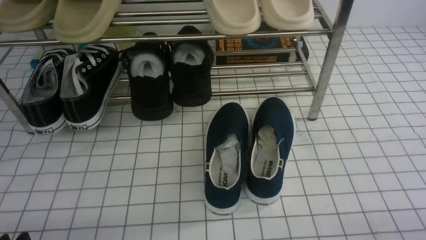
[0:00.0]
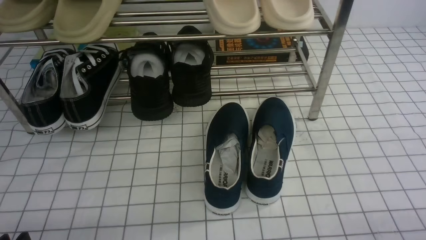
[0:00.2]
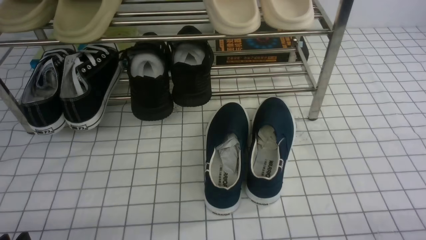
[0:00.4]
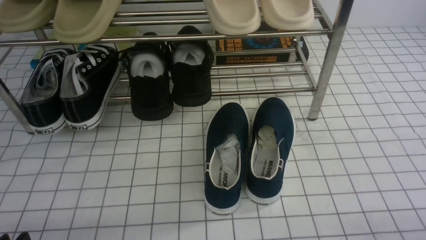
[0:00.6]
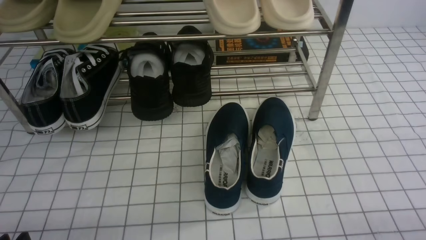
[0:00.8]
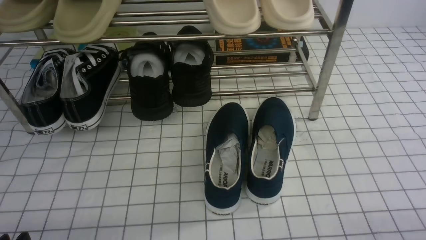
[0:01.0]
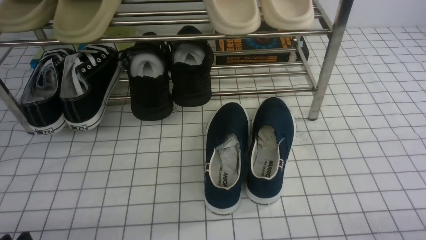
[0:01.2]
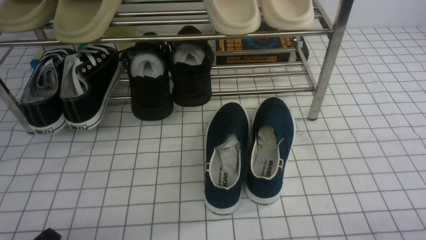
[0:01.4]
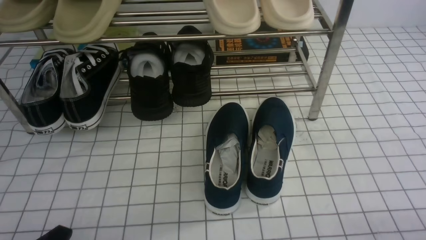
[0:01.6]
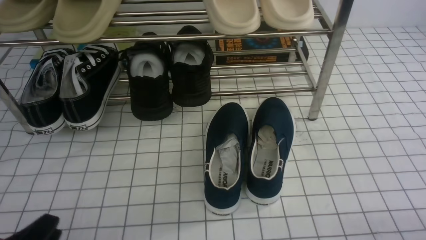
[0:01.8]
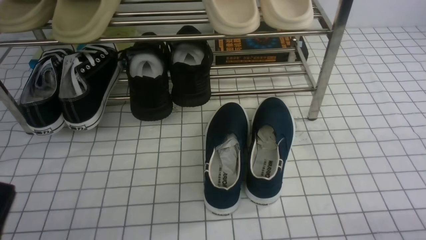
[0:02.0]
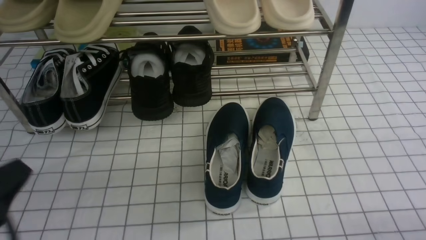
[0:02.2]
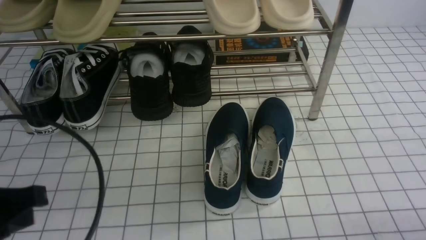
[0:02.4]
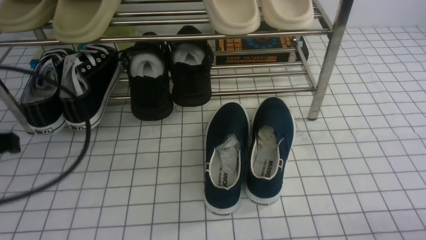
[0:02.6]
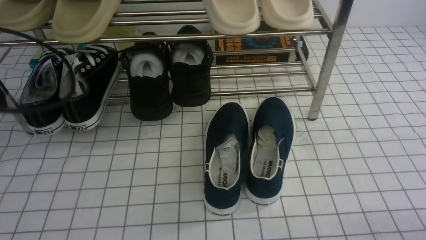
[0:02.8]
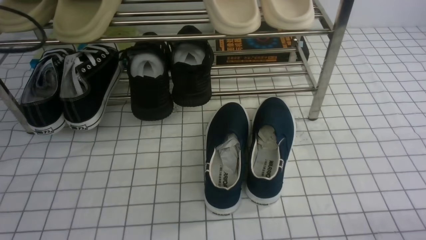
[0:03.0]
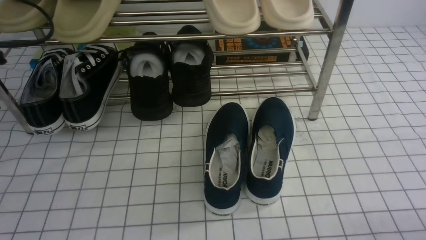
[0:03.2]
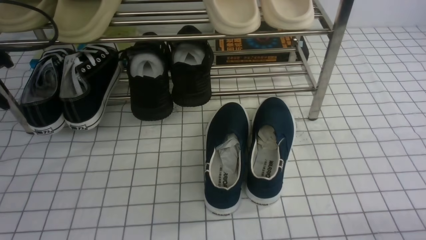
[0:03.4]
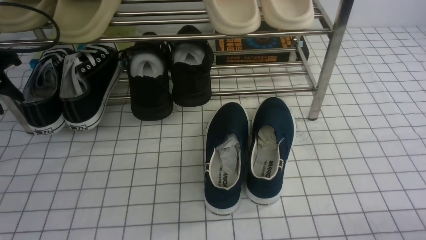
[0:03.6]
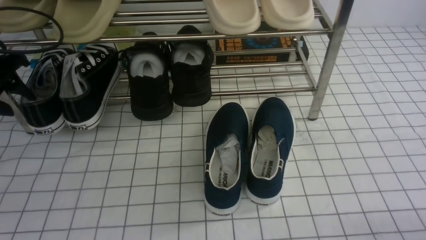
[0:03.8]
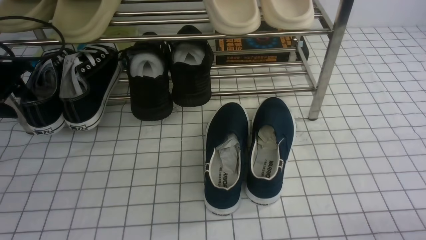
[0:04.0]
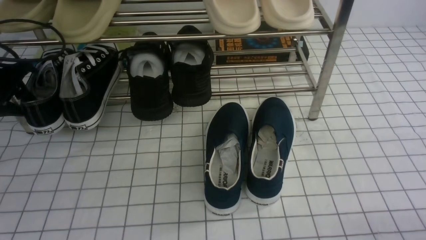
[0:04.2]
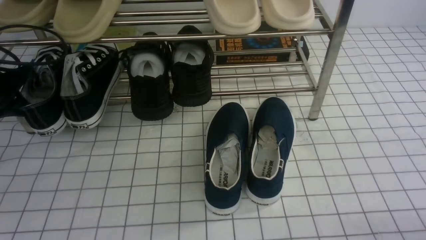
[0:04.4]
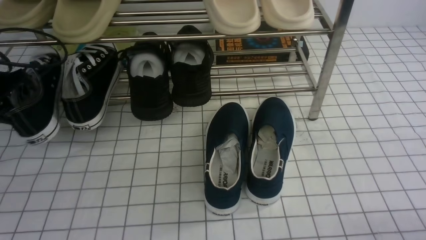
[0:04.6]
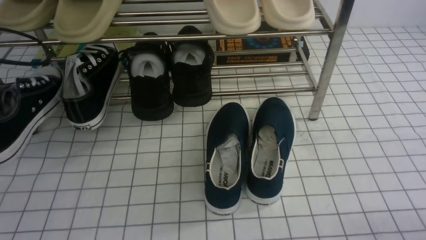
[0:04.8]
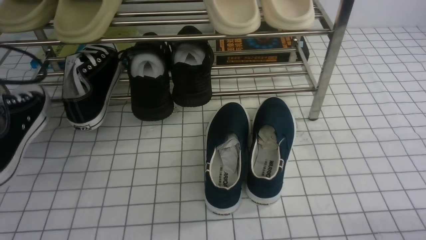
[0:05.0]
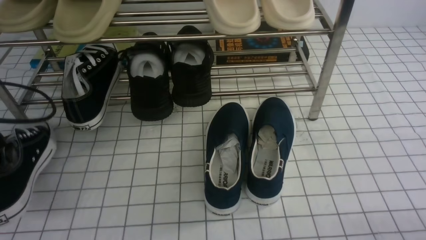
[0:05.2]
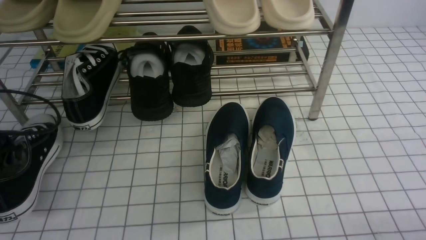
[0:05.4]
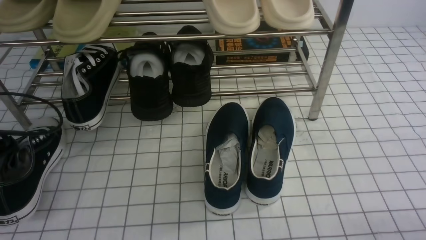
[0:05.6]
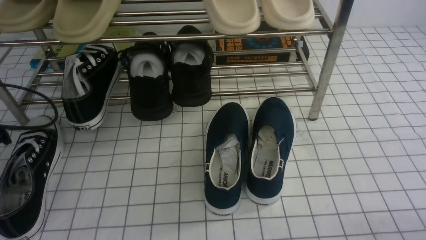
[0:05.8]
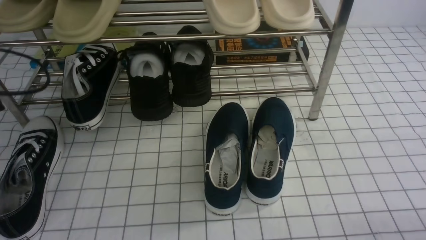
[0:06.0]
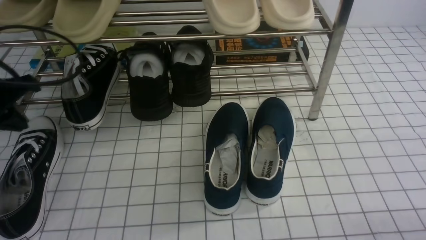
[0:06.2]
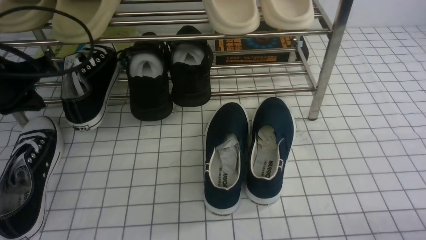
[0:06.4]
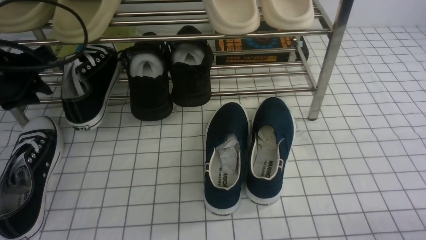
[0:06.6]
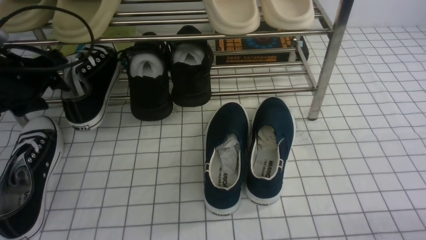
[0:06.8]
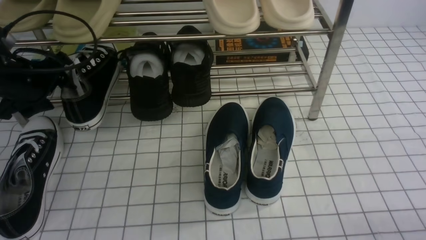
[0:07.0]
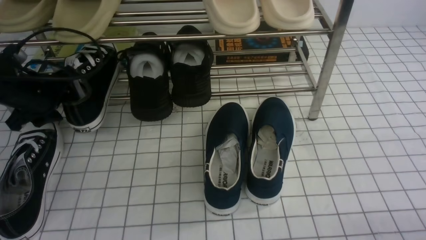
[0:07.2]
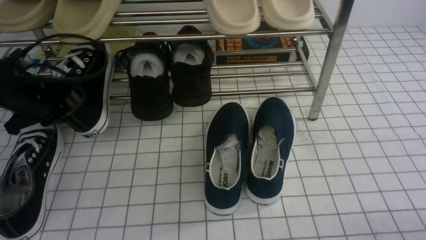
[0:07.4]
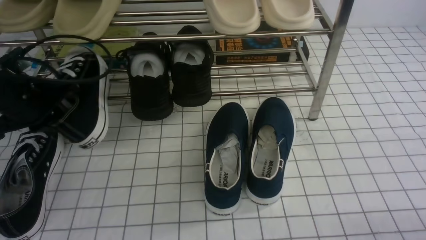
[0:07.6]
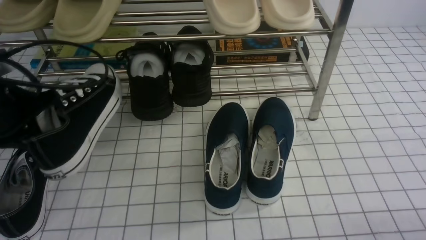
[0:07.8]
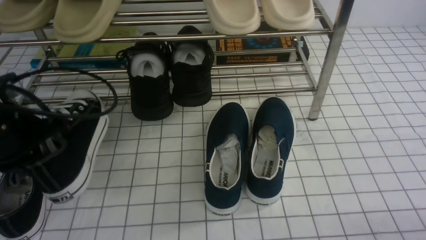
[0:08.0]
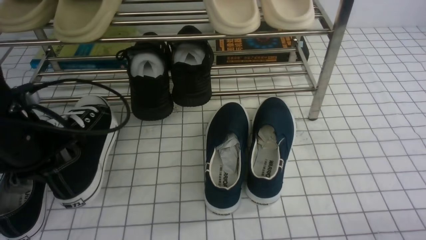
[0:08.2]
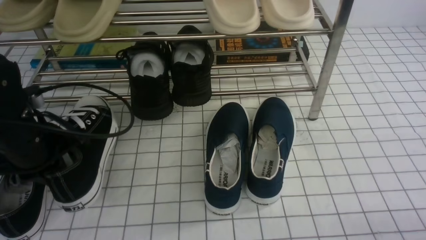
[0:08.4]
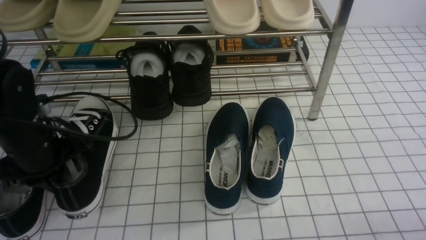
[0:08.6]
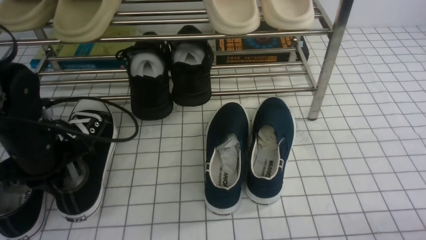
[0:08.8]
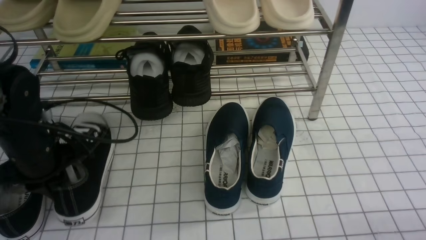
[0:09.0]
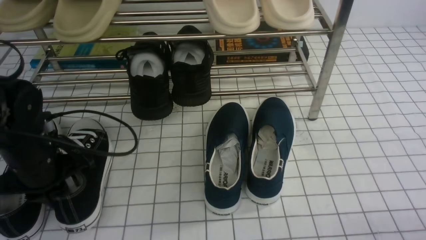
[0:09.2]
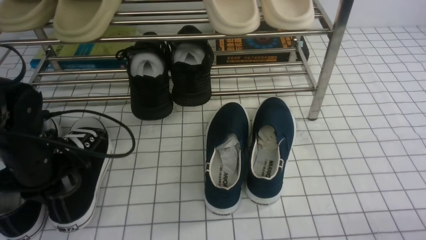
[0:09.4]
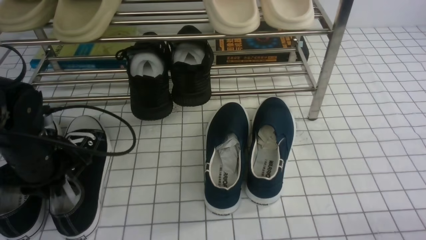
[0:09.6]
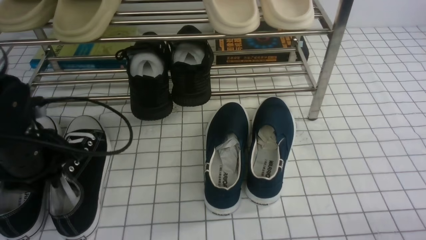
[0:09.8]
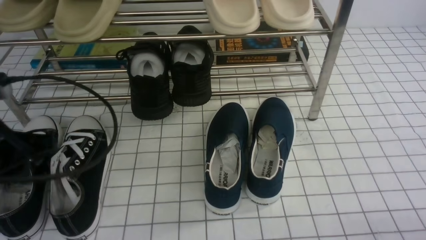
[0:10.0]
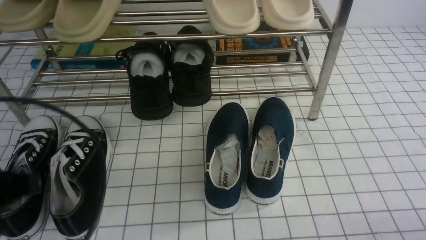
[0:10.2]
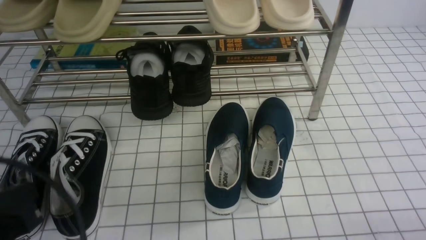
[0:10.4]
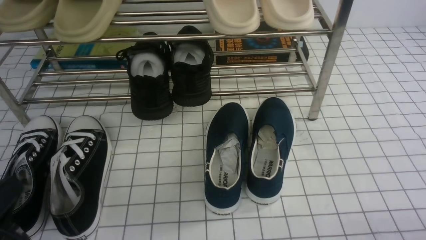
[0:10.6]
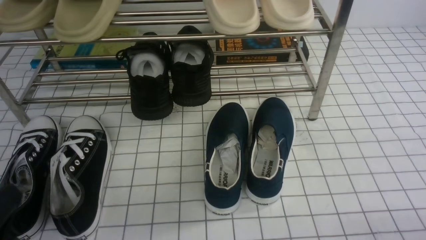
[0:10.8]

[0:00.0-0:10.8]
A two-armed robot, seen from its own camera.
Step, 0:00.0 to 0:04.4: use the left arm to clamp a shoe on the left side of the shoe rack.
Step, 0:04.6 to 0:06.0: Use your left arm to remove the clamped shoe from the shoe rack and put it down.
Step, 0:06.2 to 0:07.2: use the left arm to clamp a shoe on the left side of the shoe rack.
Step, 0:07.6 to 0:09.8: Use your left arm to remove the clamped shoe from the shoe rack and put it down.
0:01.6 to 0:03.0: The left gripper travels forward, upward and to the left by about 30 cm, and closes.
0:03.0 to 0:04.6: The left gripper shifts some 10 cm downward and forward, and opens, then closes once more.
0:04.6 to 0:06.2: The left gripper ends up approximately 5 cm from where it was.
0:06.2 to 0:07.8: The left gripper travels forward and back again, some 5 cm each way, and opens, then closes again.
0:07.8 to 0:09.2: The left gripper is displaced downward by roughly 5 cm.
0:09.2 to 0:10.8: The left gripper heads backward, covering about 20 cm, and opens and closes again.

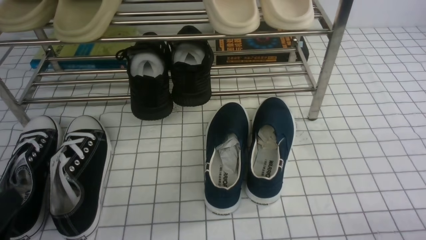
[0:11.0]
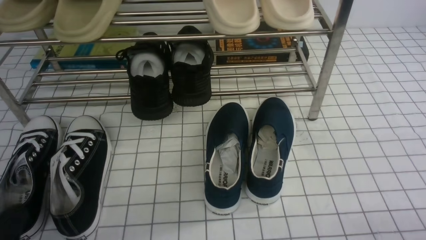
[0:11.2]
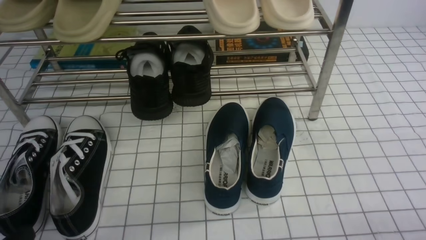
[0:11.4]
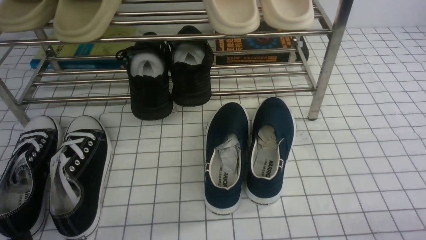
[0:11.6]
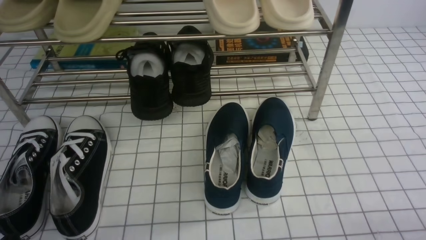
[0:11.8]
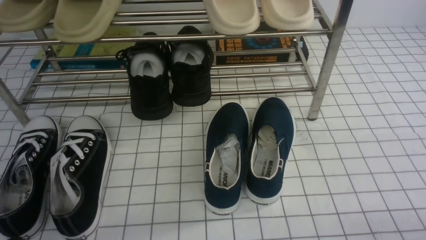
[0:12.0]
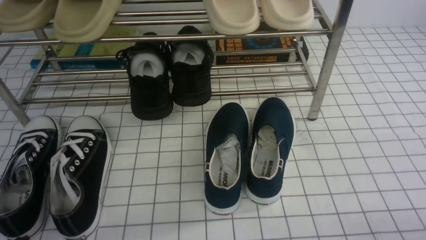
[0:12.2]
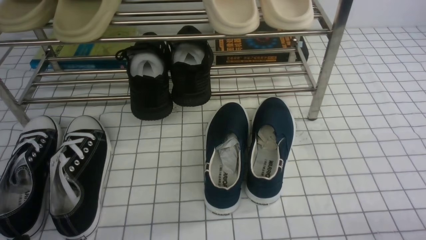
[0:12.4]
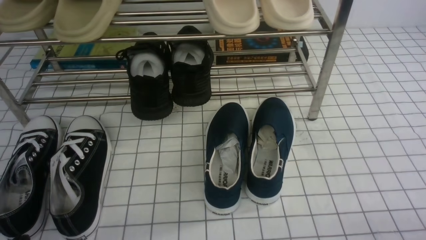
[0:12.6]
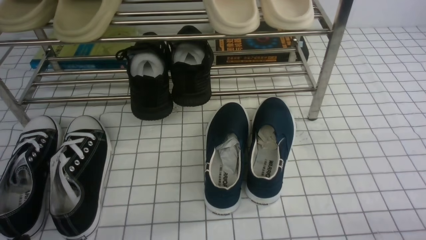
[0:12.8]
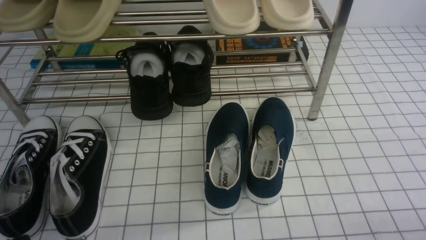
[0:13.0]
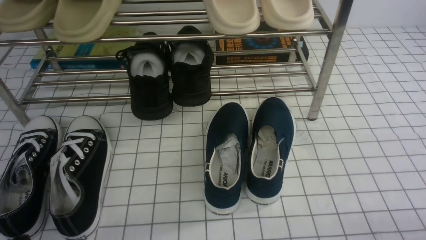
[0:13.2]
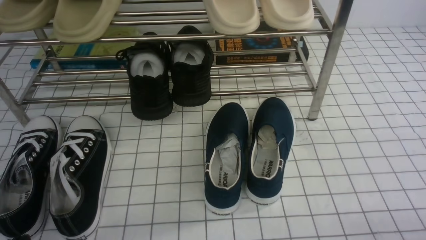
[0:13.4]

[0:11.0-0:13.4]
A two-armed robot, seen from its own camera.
0:11.0 to 0:12.2: The left gripper heads downward, covering some 5 cm.
0:12.2 to 0:13.4: Neither gripper changes place.
